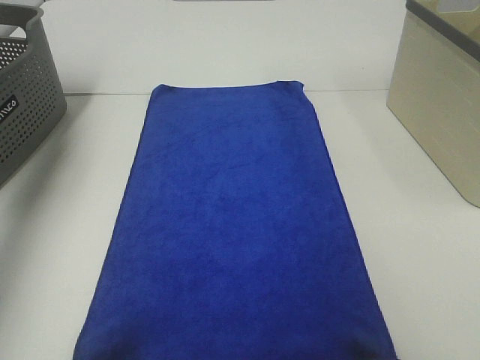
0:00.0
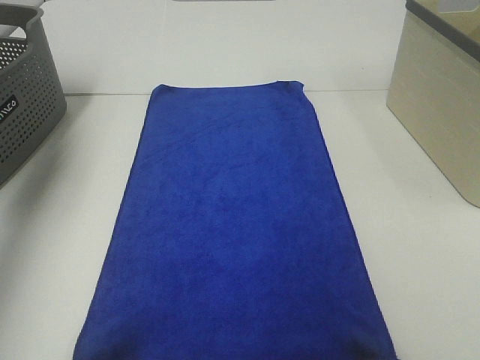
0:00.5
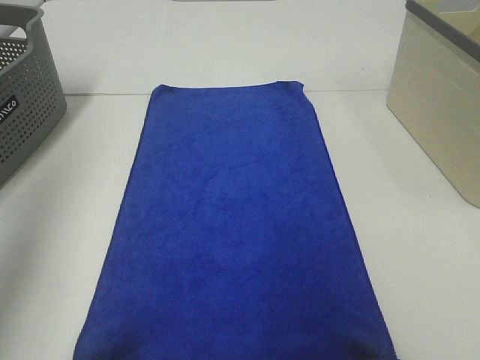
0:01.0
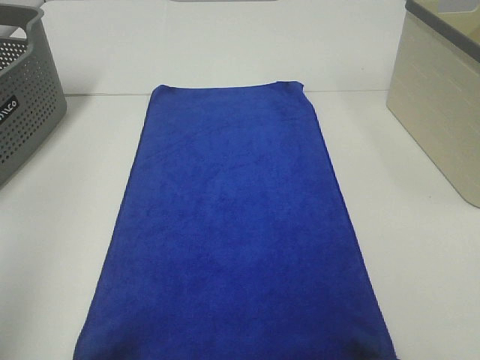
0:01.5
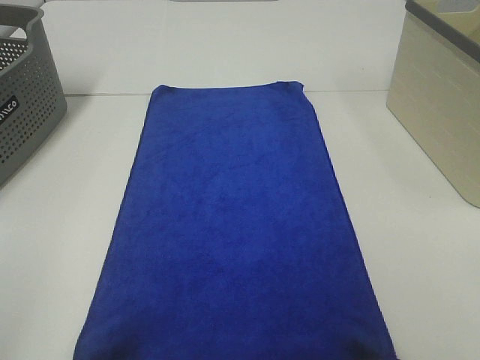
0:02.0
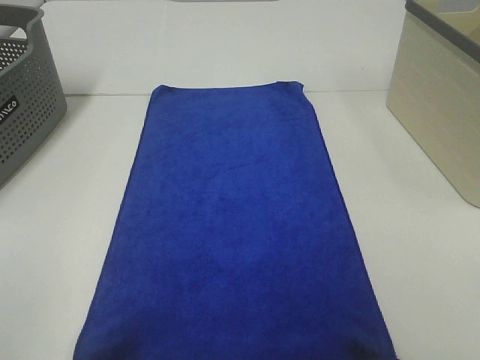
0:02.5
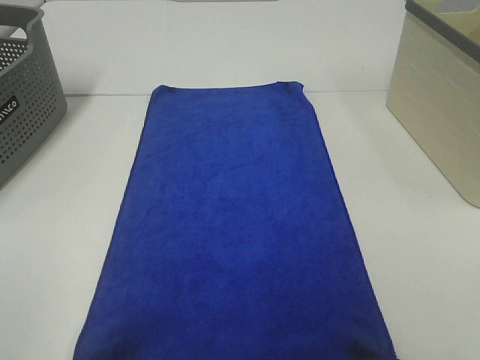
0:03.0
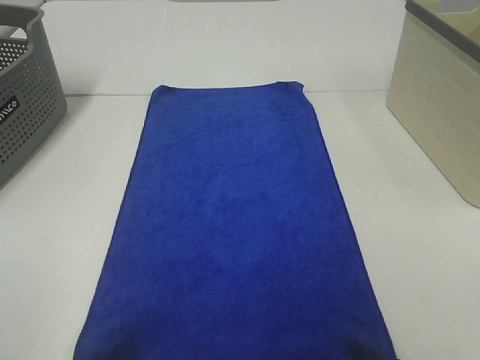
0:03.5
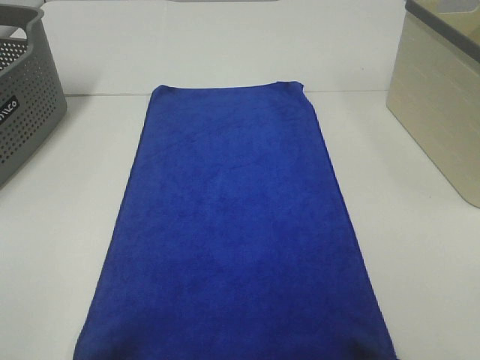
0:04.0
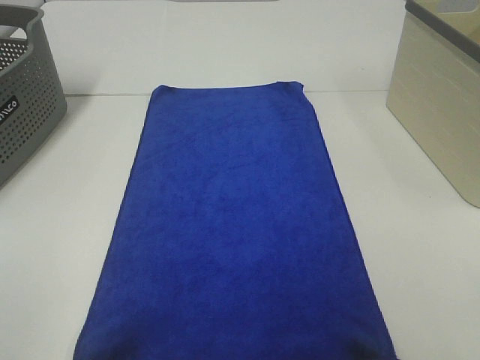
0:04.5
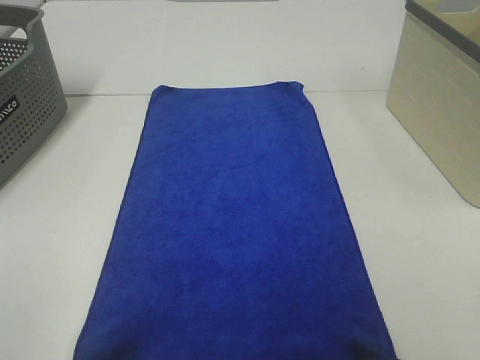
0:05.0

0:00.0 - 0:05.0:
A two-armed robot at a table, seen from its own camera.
Task of the whole recording: Remove the towel and place it.
0:00.0 - 0:02.5: The left gripper travels backward by roughly 40 cm.

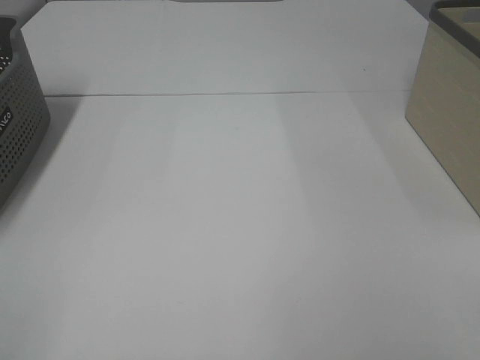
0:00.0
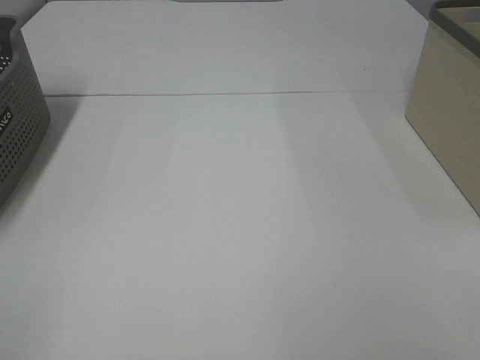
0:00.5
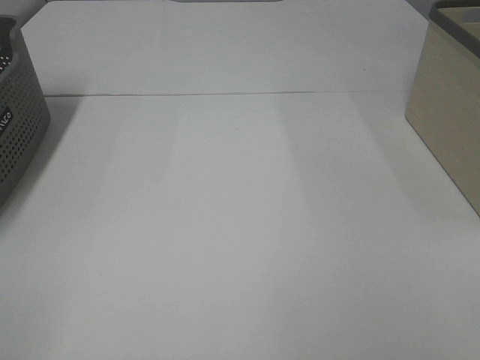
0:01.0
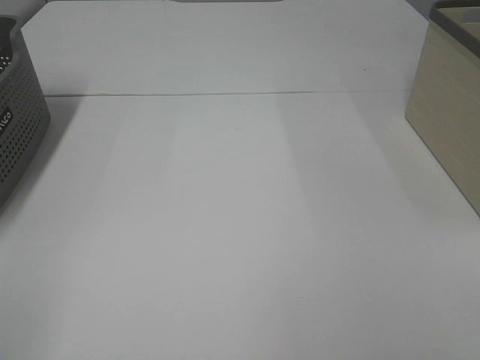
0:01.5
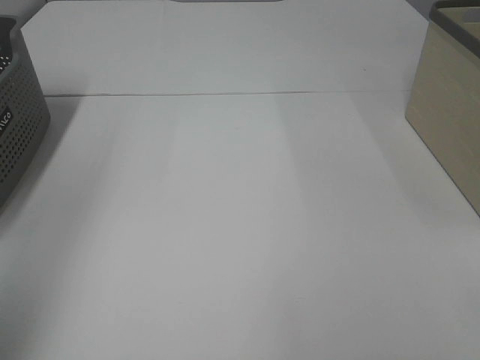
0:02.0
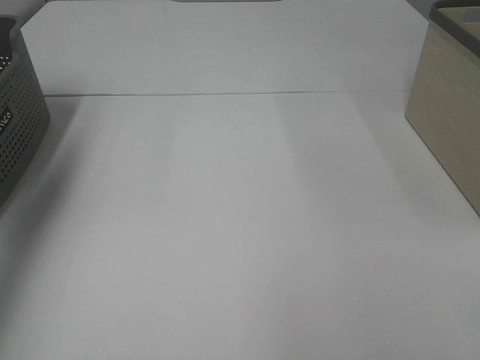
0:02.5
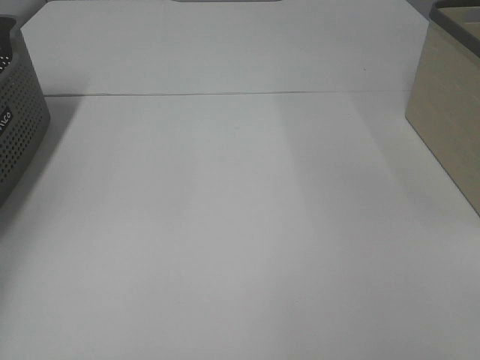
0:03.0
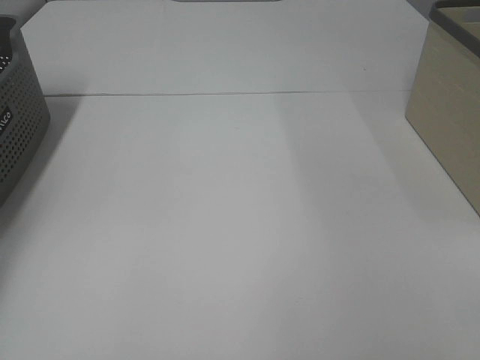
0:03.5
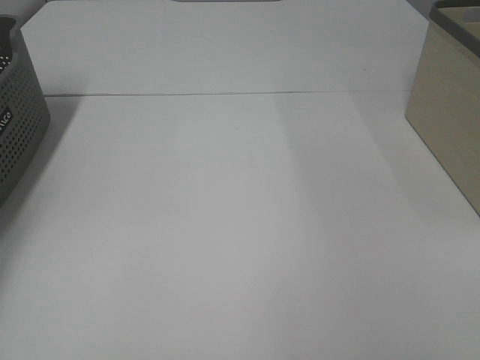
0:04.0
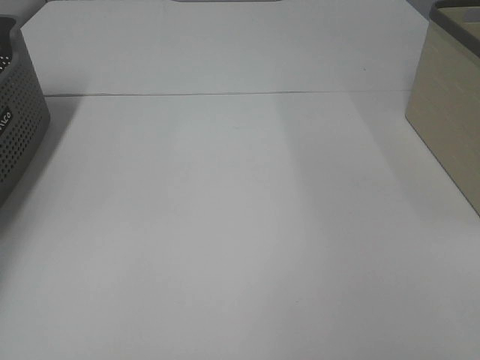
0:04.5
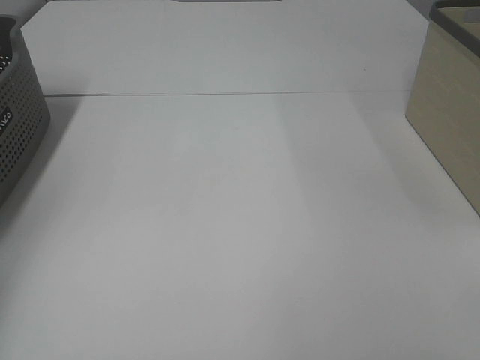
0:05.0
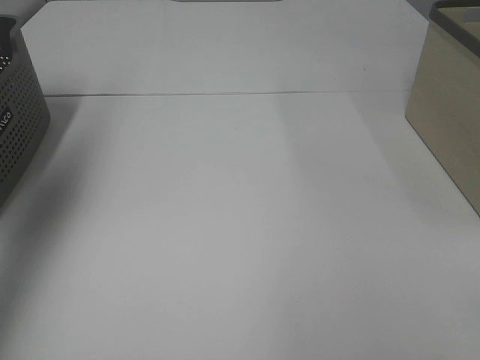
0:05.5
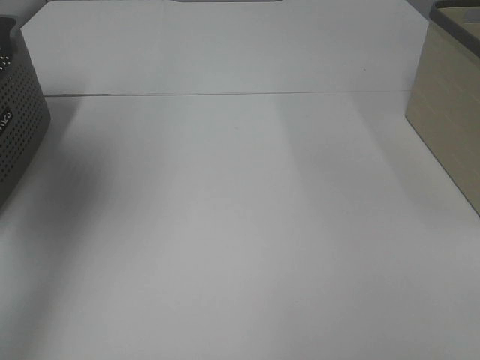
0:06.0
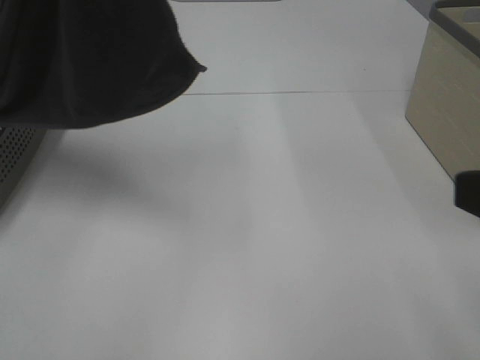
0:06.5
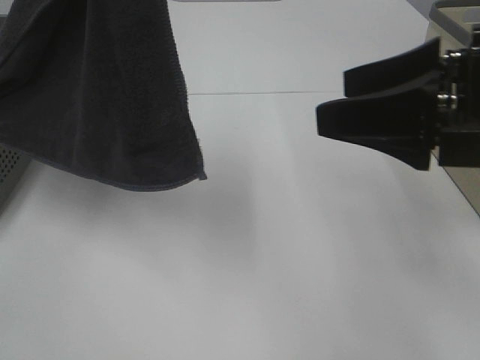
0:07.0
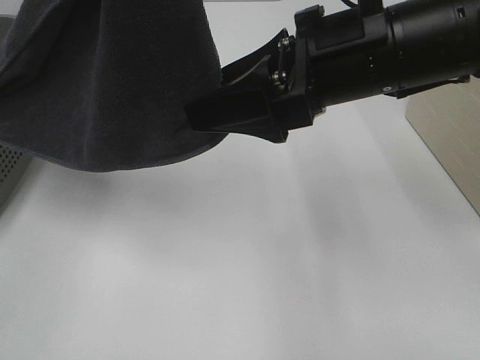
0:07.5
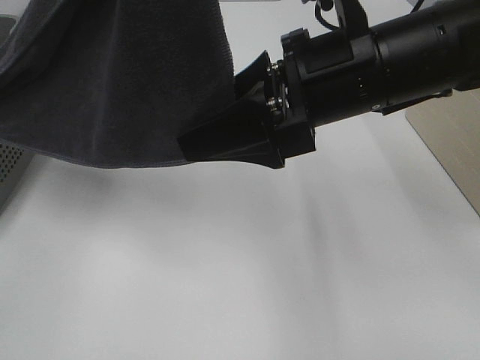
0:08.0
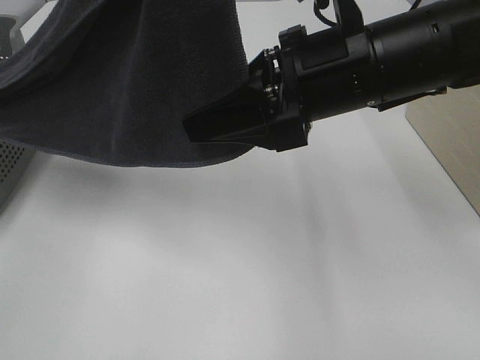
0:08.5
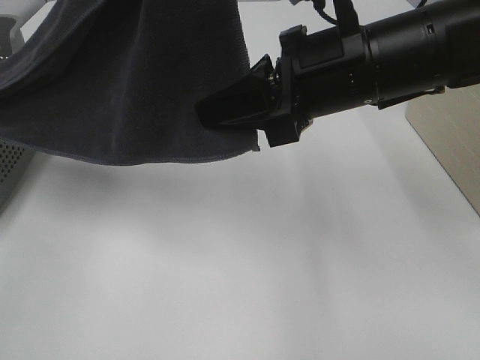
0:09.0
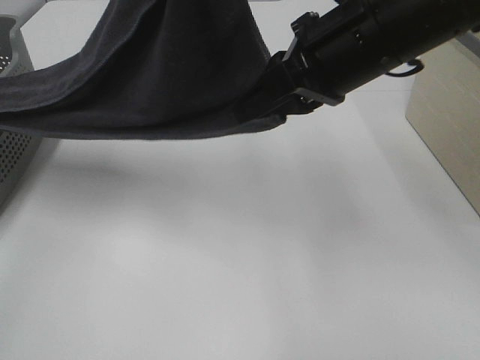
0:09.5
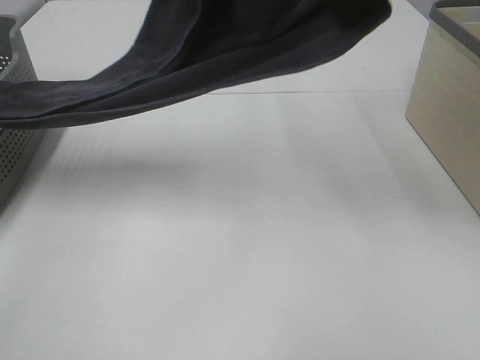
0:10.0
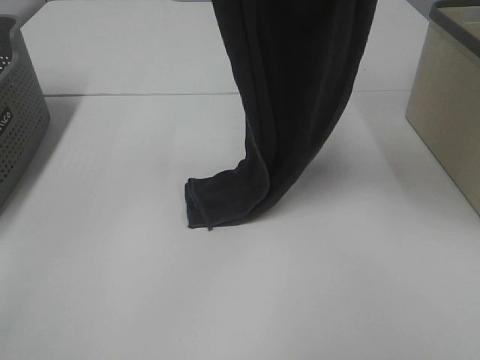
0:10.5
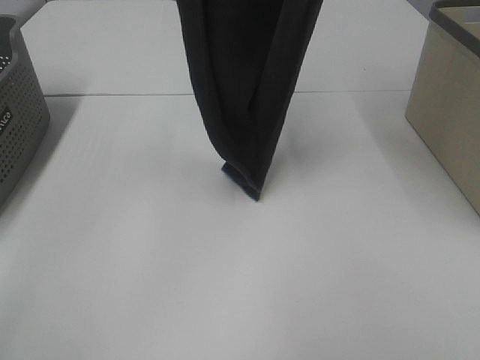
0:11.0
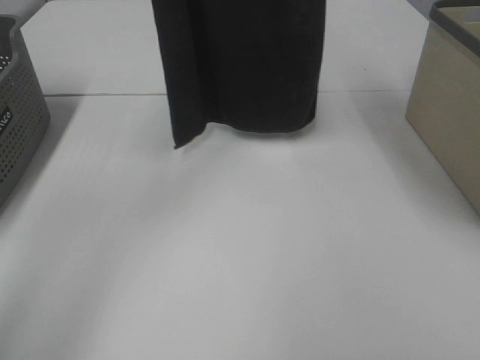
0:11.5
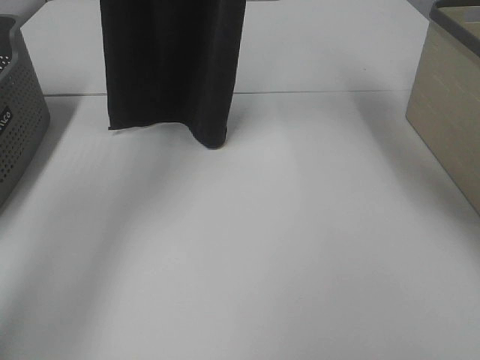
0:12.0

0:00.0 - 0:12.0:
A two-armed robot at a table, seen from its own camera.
Task of the whole recording: Remove the towel and place it.
Step, 0:06.5 - 0:09.0: Right hand: grab a corner of the grey towel and straighten it.
0:00.0 - 0:02.0: The left gripper goes roughly 20 cm forward and upward.
0:02.0 - 0:04.0: The left gripper shifts about 40 cm forward, downward and to the left.
0:04.0 - 0:06.0: The left gripper is displaced upward, to the right and backward by roughly 40 cm, and closes its fingers.
0:06.0 - 0:08.0: The right gripper is displaced forward and to the left by roughly 30 cm. The left gripper goes roughly 15 cm to the right.
0:08.0 - 0:10.0: The right gripper heads upward, covering about 15 cm, and closes its fingers, while the left gripper heads forward, covering about 5 cm.
0:10.0 - 0:12.0: The left gripper heads forward and to the left, covering some 20 cm; the right gripper heads forward and upward, covering roughly 15 cm.

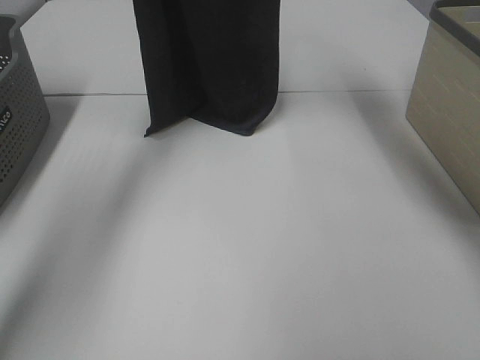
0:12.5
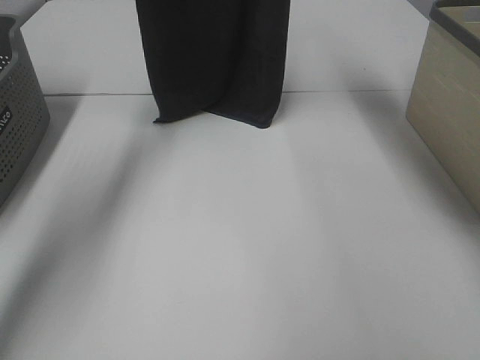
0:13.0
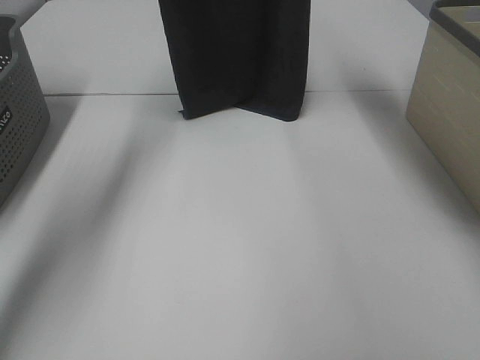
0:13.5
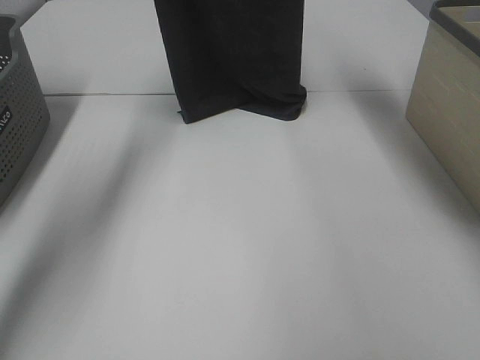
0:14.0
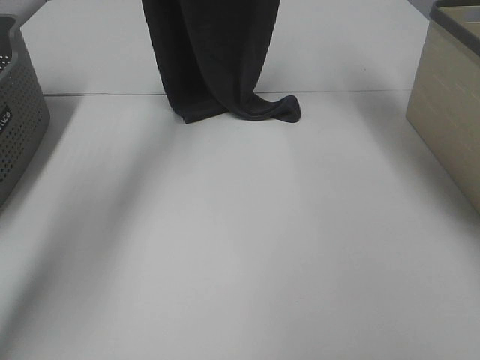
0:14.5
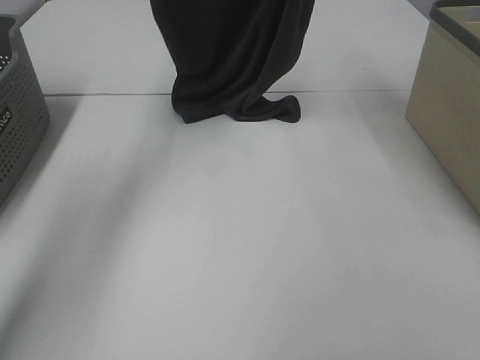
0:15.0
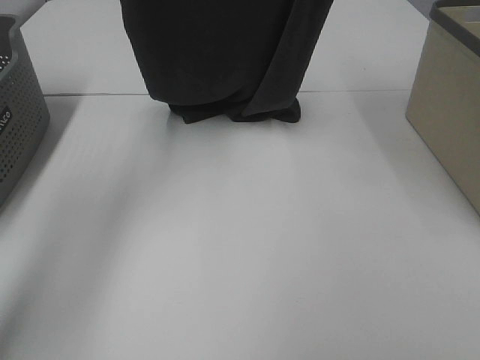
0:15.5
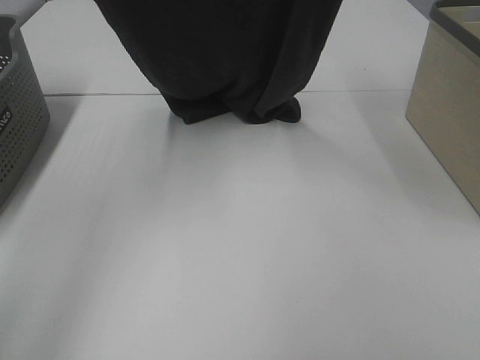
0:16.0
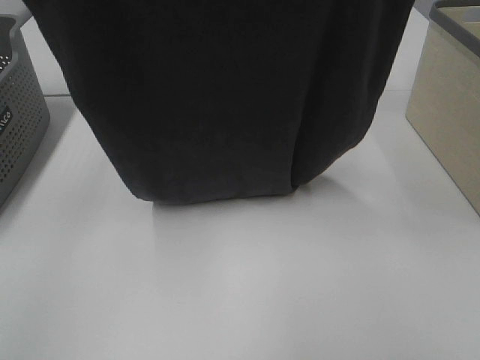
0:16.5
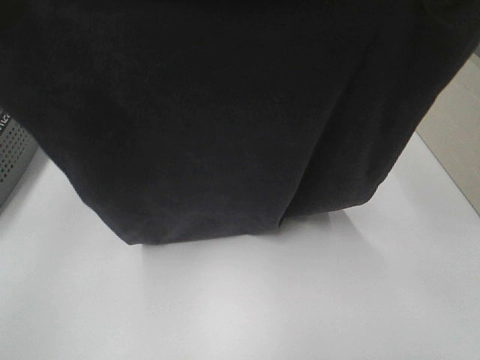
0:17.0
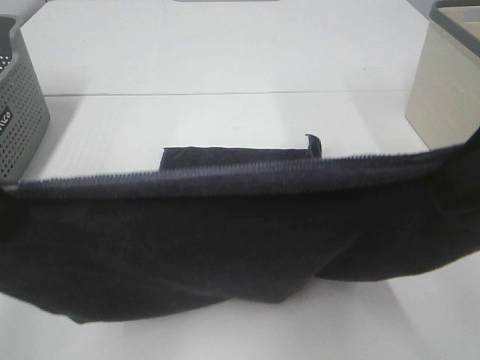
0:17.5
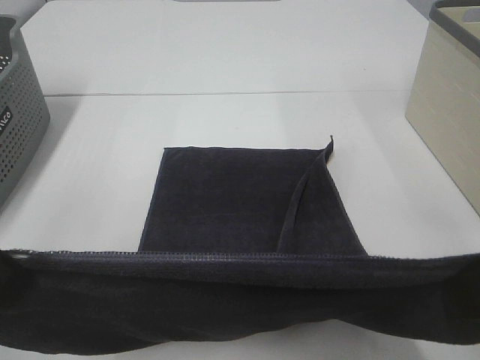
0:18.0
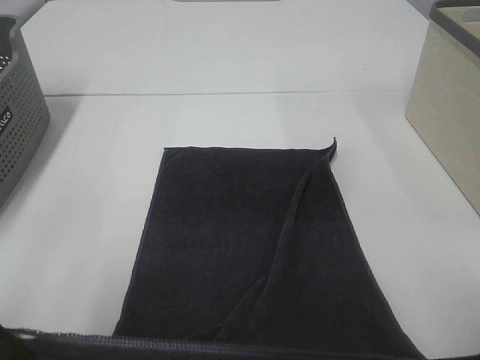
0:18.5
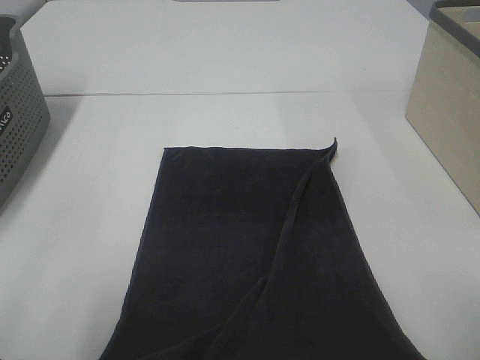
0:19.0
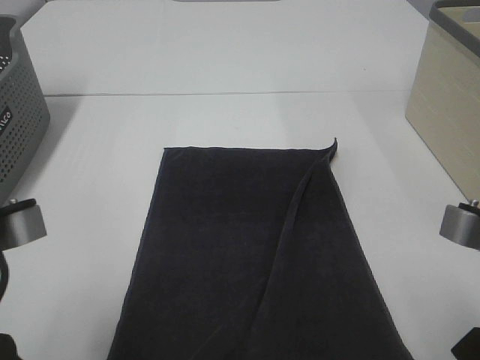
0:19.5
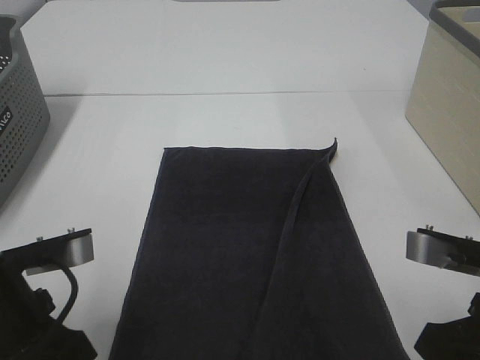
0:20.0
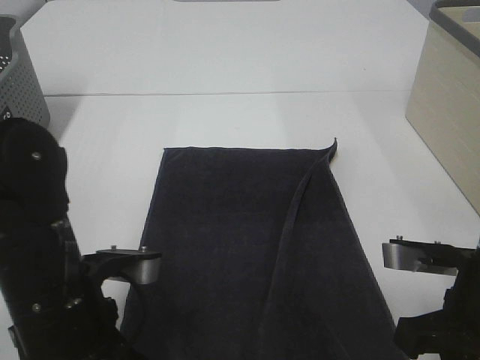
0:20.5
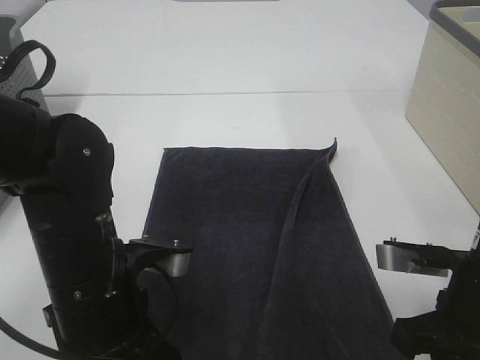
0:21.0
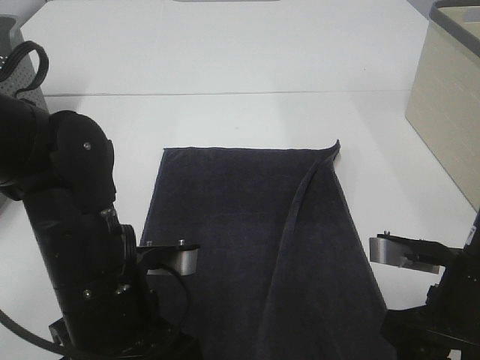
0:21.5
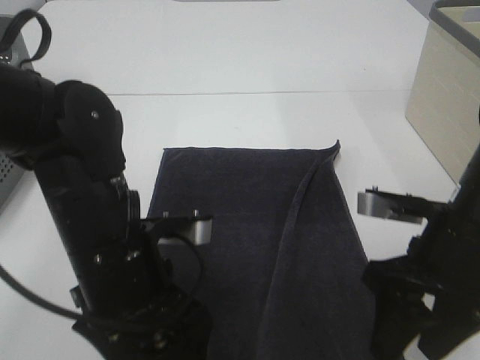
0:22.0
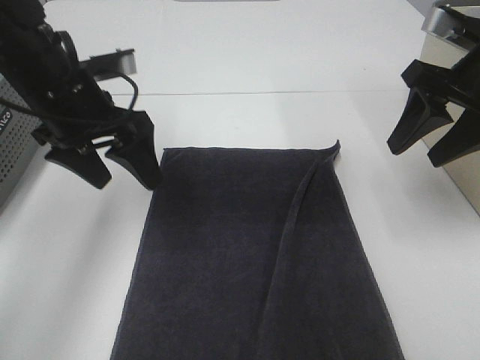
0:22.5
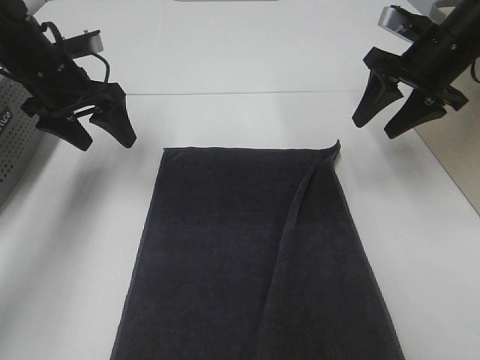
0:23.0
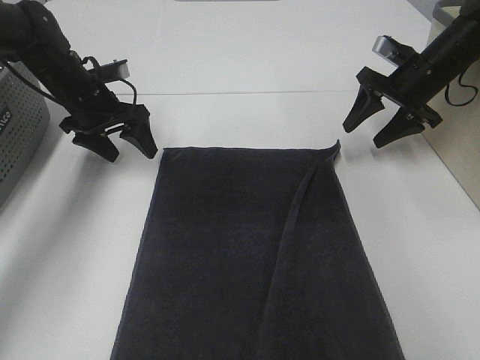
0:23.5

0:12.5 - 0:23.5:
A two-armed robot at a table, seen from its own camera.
Task of the whole recording: Remove the towel and place it.
Step, 0:12.5 - 0:17.0: Left hand: spread the grey towel flat on the table.
Step, 0:12.5 - 0:17.0: Right hand: spread the grey towel flat on the table.
0:14.5 - 0:16.0: Both grippers travel together backward, roughly 15 cm.
0:16.0 - 0:18.0: Both grippers move backward and downward, about 30 cm.
0:18.0 - 0:20.0: The grippers both shift downward by about 10 cm.
0:20.0 - 0:21.5: The left gripper heads to the right, covering about 10 cm, and opens up; the right gripper moves about 5 cm, and opens its fingers.
0:21.5 - 0:23.5: Both grippers move forward, approximately 30 cm.
